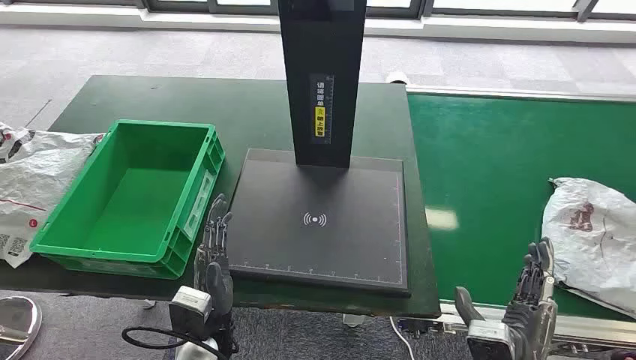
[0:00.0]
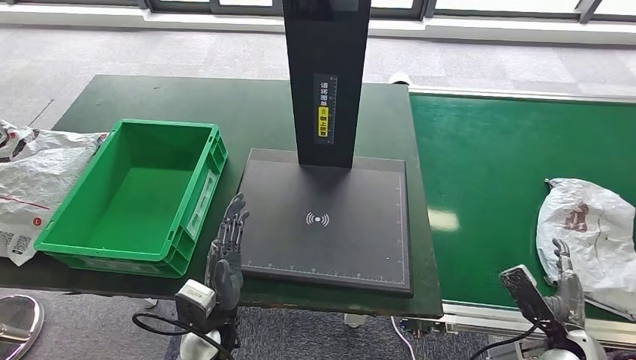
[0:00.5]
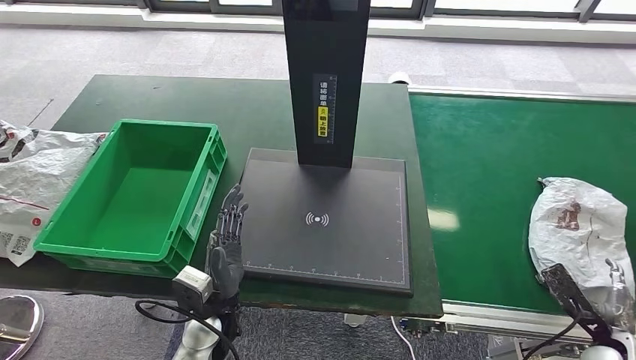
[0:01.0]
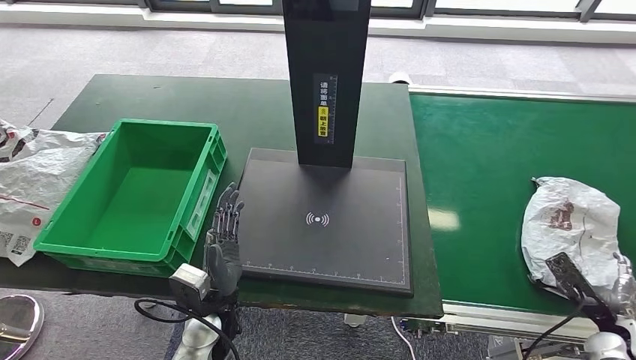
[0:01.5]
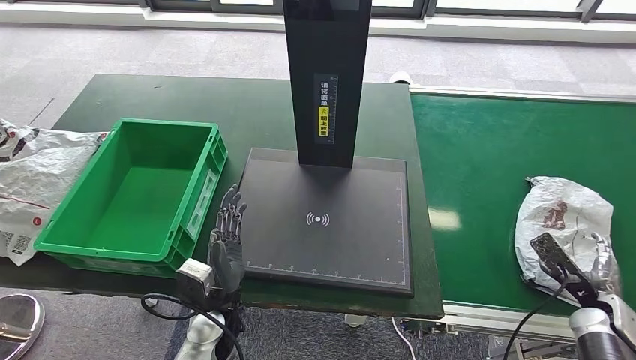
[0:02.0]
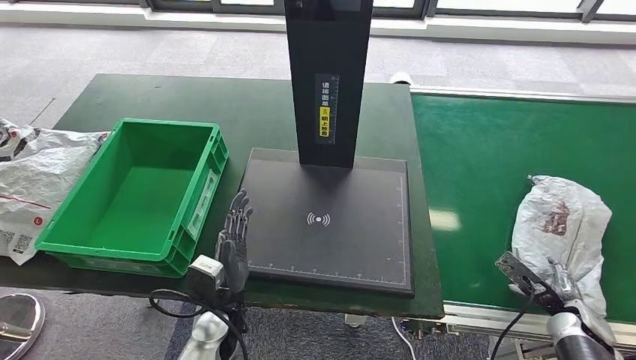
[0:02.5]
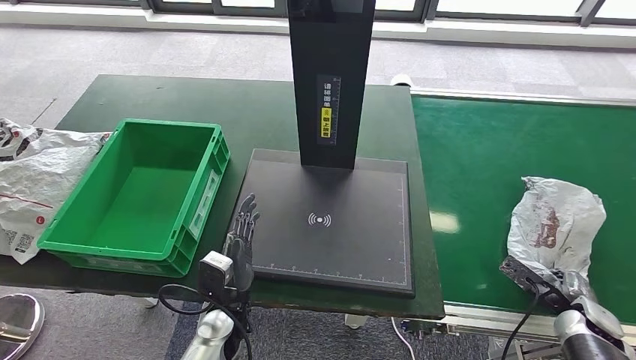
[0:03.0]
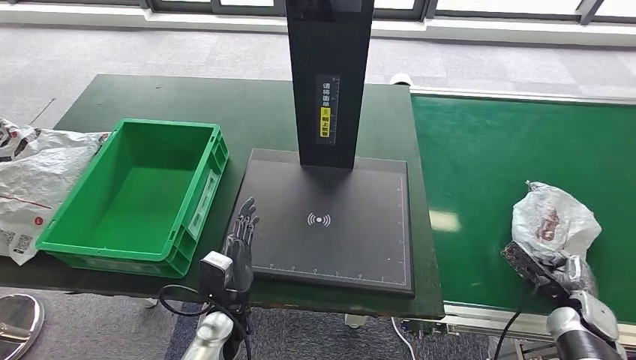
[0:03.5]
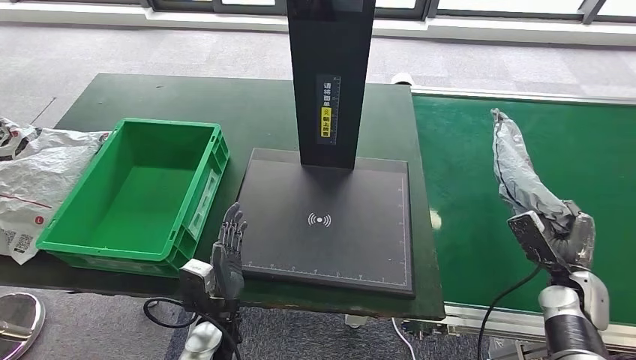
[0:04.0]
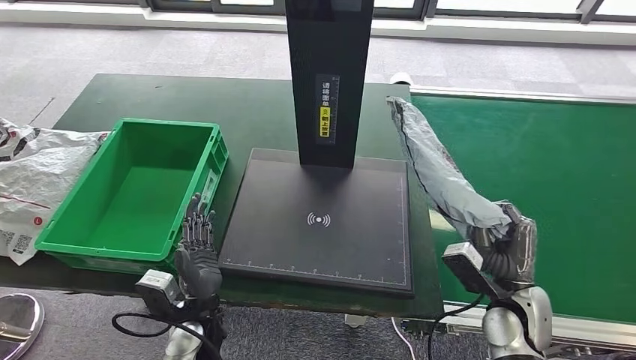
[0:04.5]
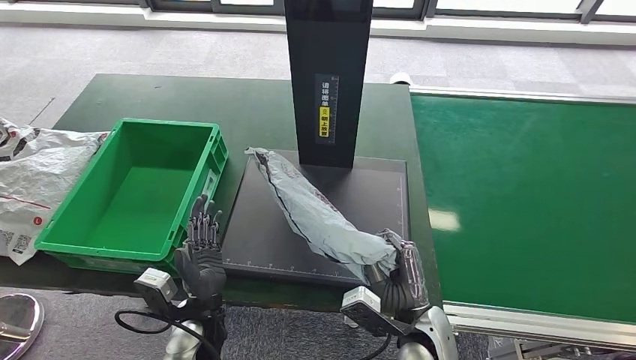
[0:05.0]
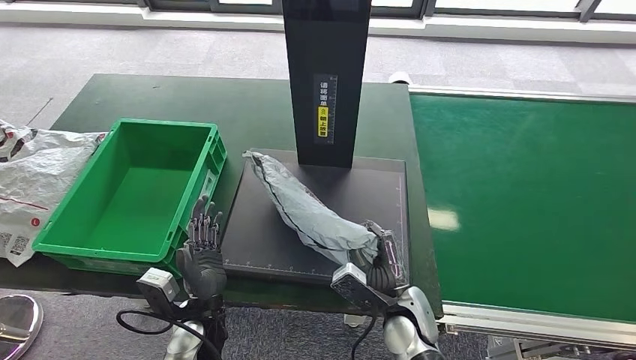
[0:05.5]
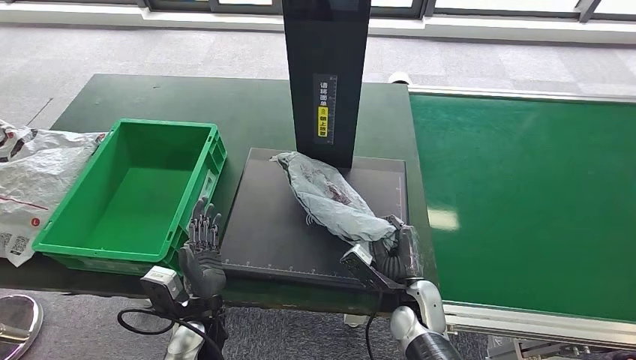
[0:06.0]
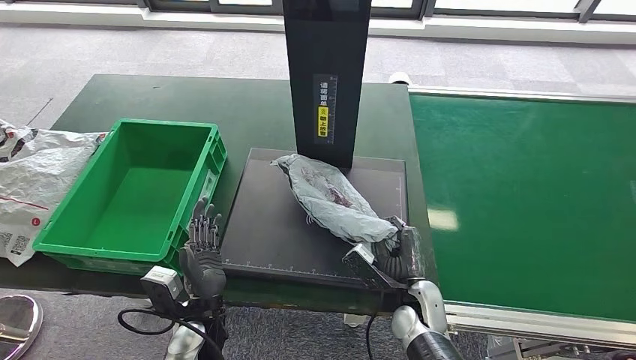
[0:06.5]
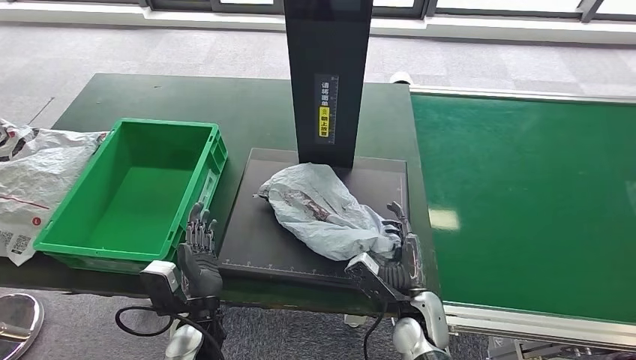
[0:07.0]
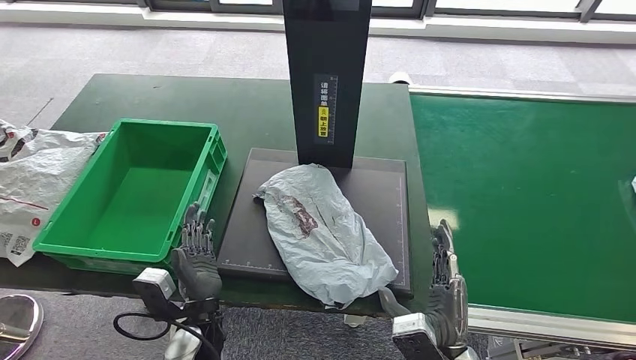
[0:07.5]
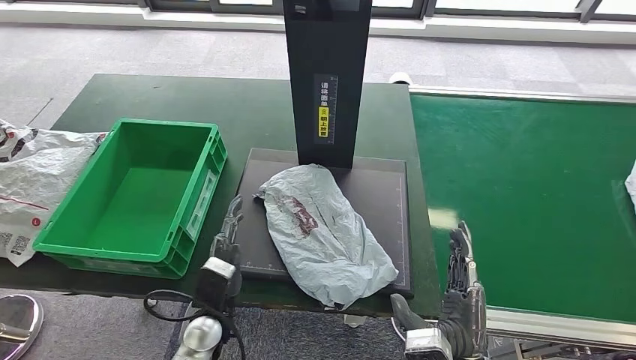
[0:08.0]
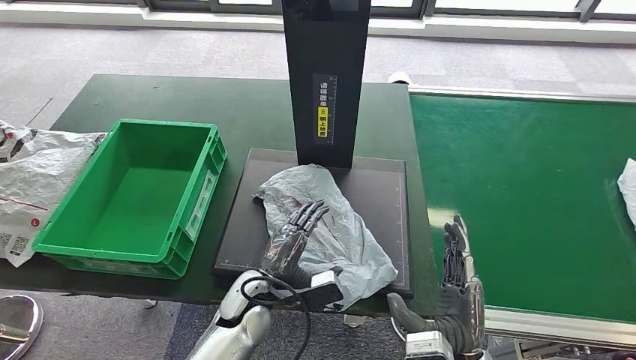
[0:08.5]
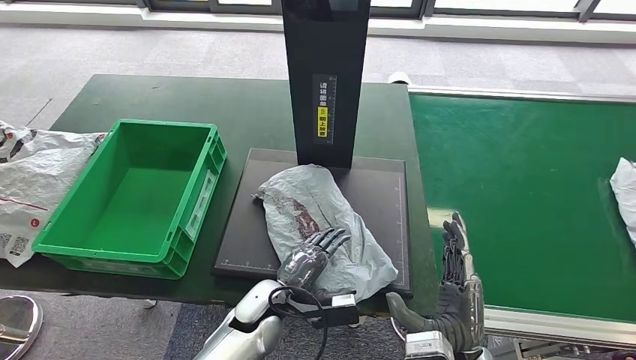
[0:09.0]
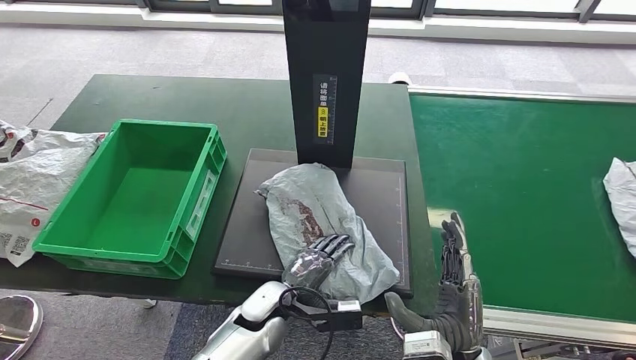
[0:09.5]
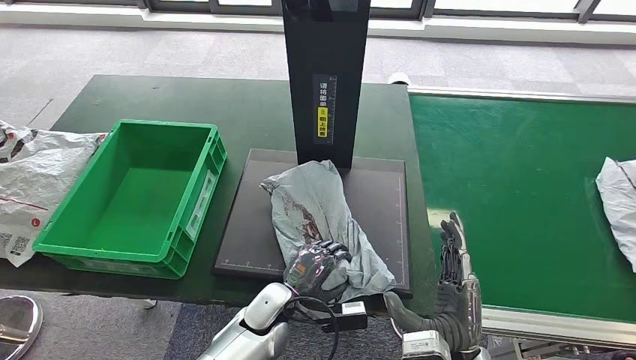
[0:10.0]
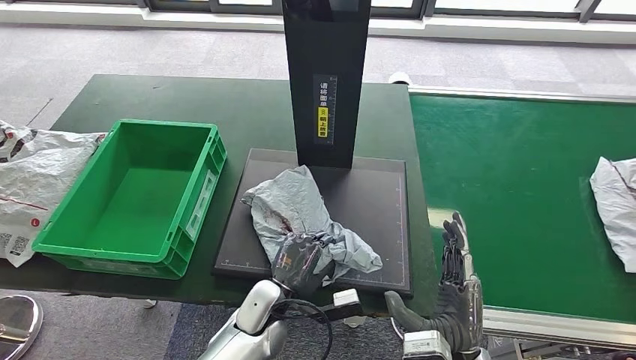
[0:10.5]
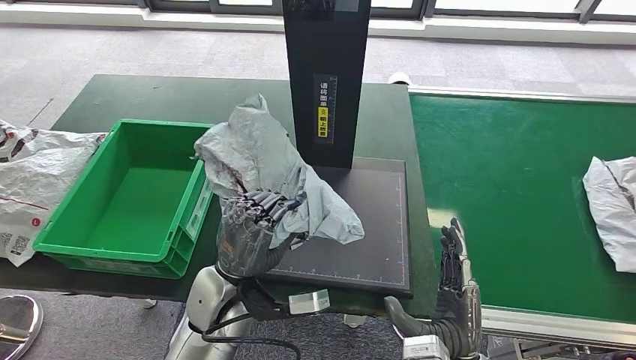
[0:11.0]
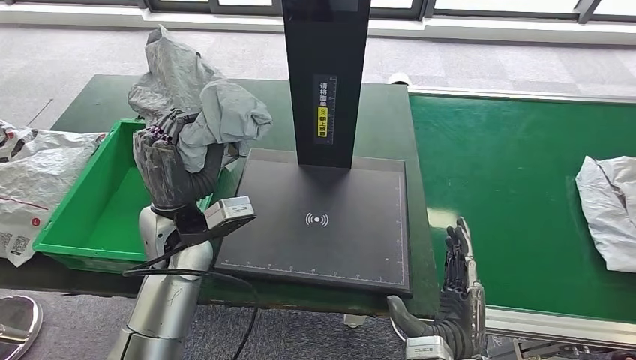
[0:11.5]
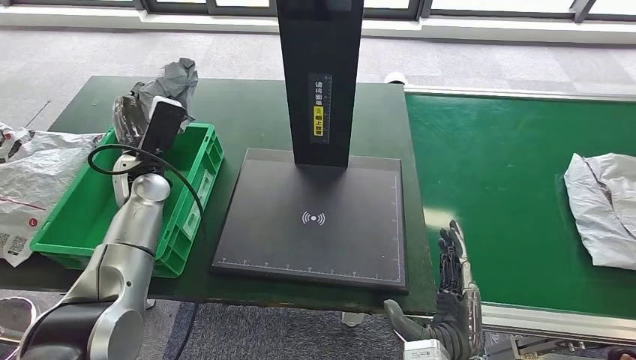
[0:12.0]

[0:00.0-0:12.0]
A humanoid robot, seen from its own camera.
Step, 0:00.0 to 0:04.5: Take the parcel off the conveyor belt.
Step, 0:05.0 to 0:08.5: Place the parcel onto the inbound machine.
Step, 0:09.5 to 0:11.5: Pick up the parcel from the inbound machine.
0:02.0 to 0:04.0: The right hand moves to the left, some 5 cm.
0:06.0 to 0:08.0: The right hand goes approximately 15 cm backward and upward.
0:08.0 to 0:10.0: The left hand shifts about 10 cm to the right.

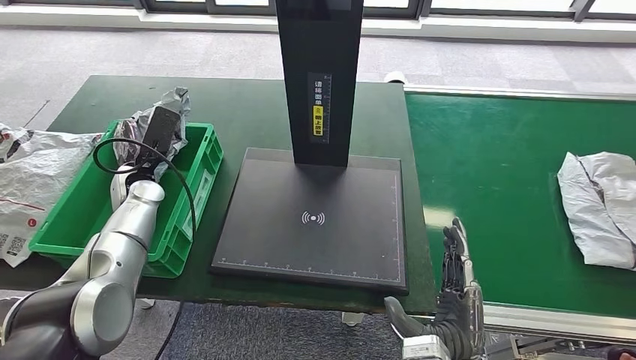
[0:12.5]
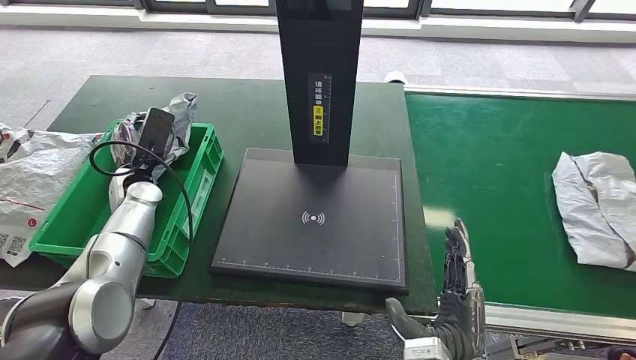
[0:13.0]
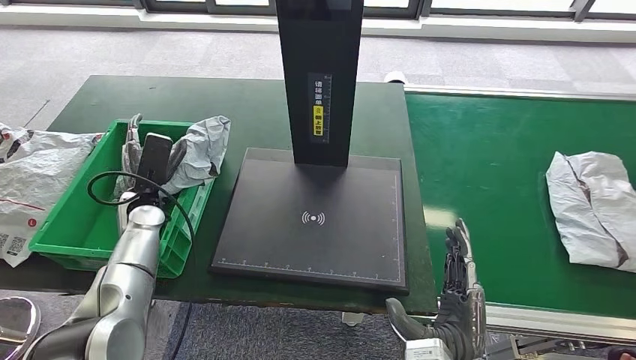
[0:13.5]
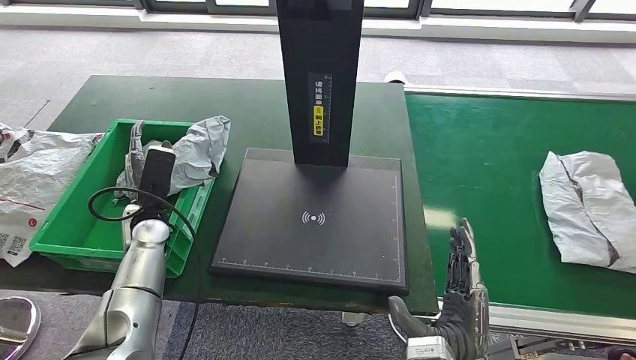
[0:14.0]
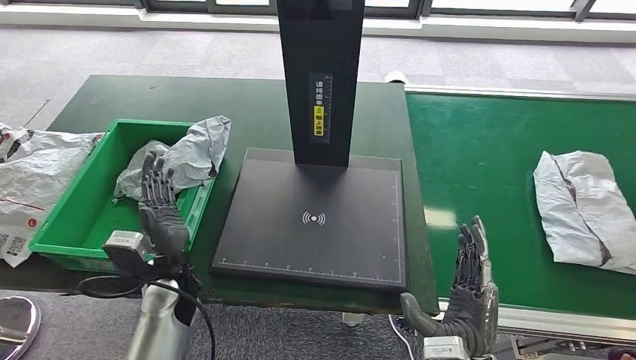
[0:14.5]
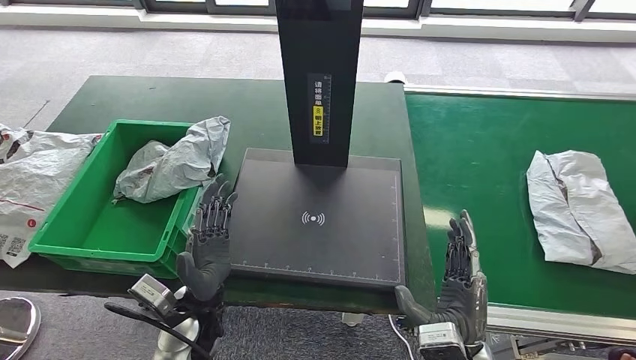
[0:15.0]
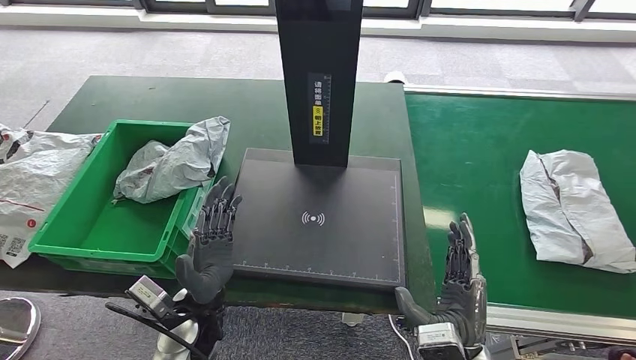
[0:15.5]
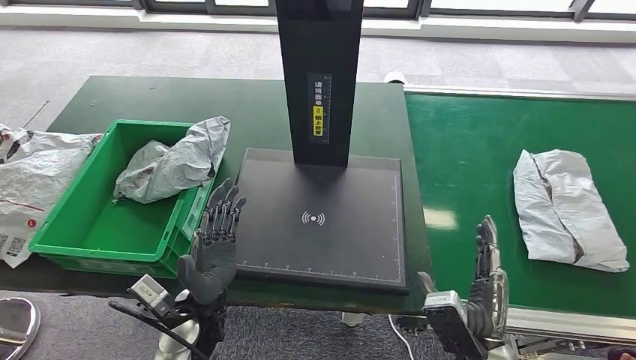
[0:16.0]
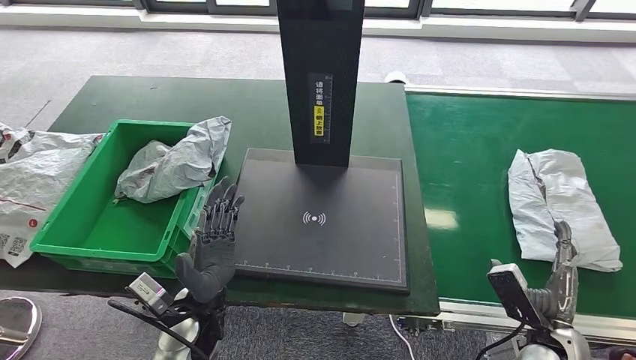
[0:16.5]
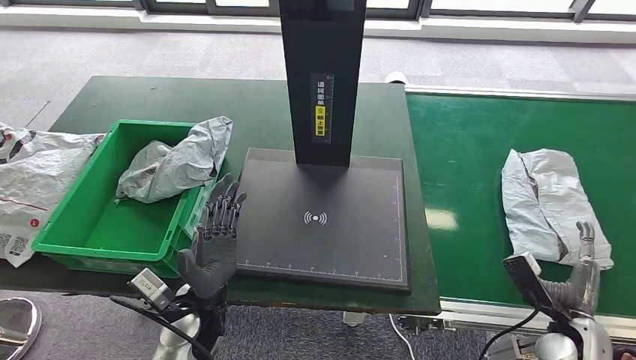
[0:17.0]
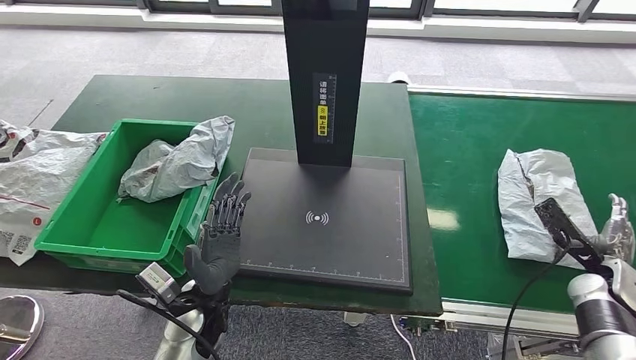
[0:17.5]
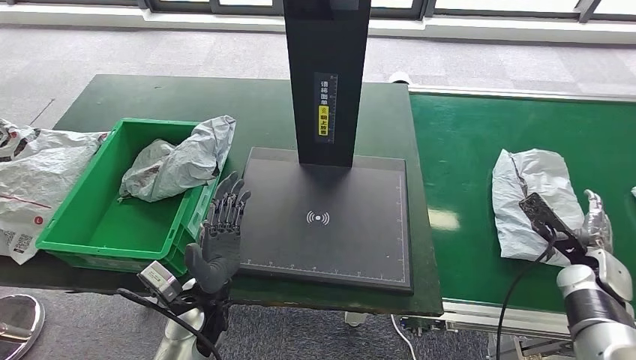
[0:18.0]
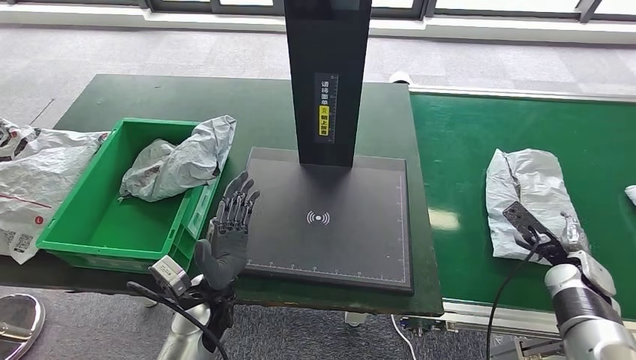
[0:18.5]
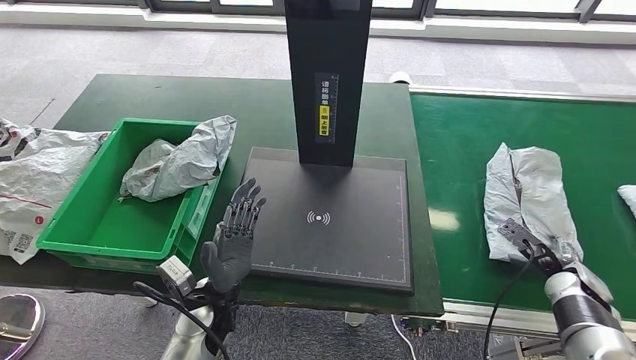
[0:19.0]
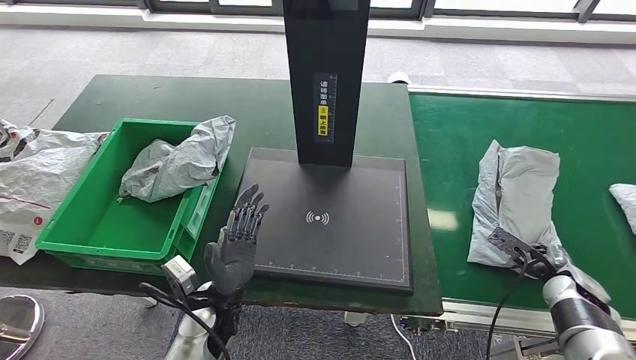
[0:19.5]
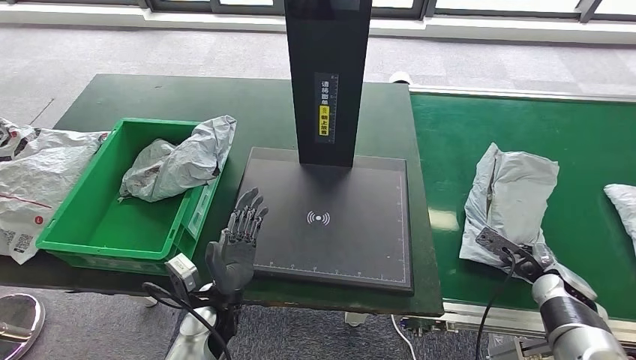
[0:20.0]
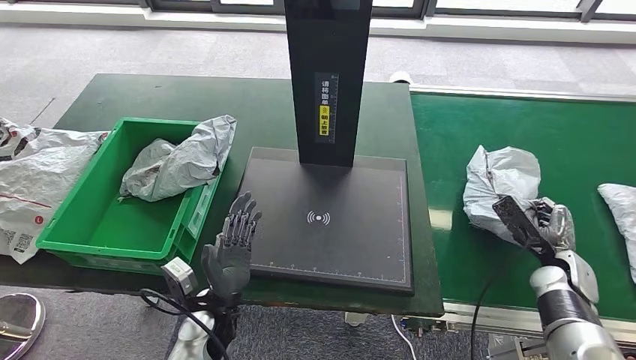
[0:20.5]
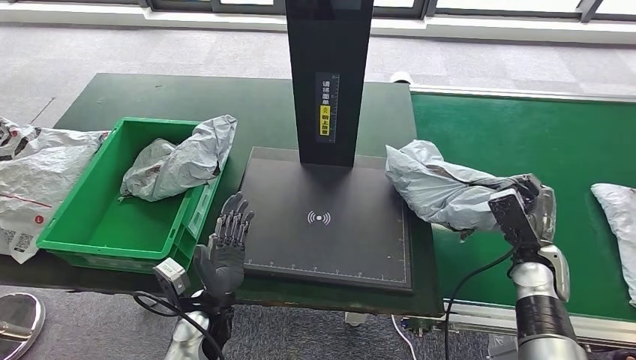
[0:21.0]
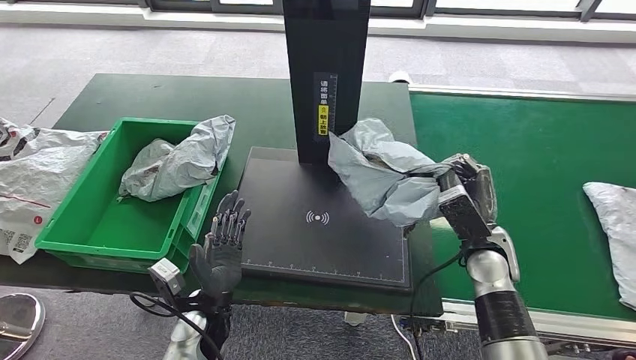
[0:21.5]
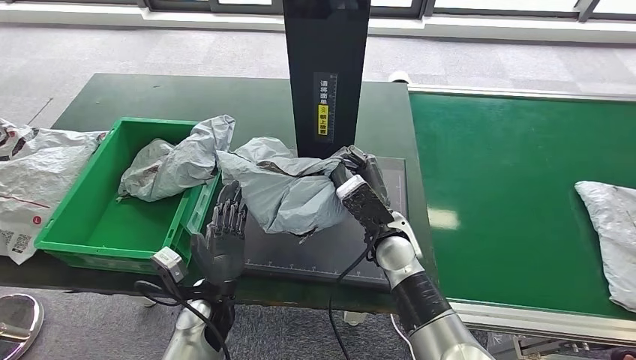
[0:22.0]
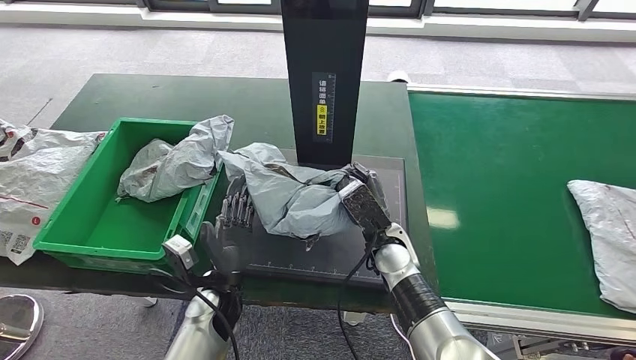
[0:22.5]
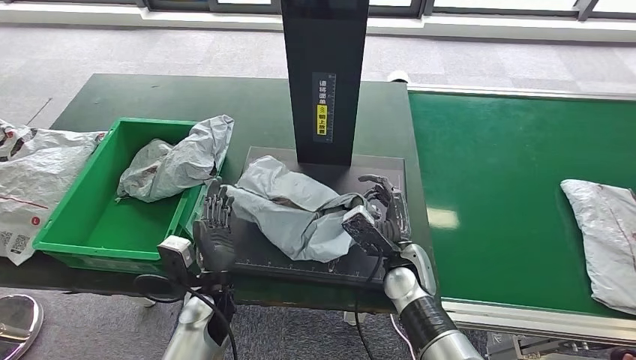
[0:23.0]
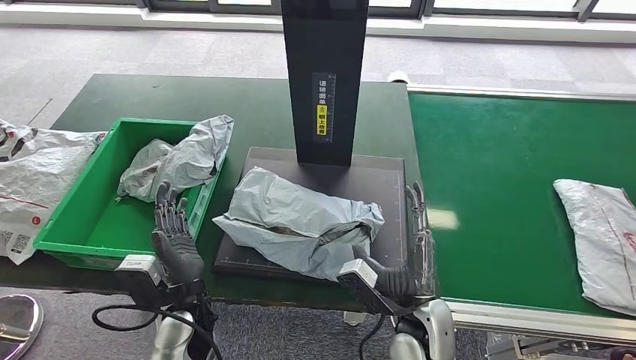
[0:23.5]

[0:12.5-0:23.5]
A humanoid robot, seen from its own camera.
Step, 0:12.5 to 0:14.5: Put the parcel inside the courier box.
Step, 0:15.0 to 0:20.5: Pick up the parcel from the conveyor belt.
0:12.5 to 0:14.5: The left hand is displaced backward and to the right by some 20 cm.
0:14.5 to 0:16.0: The left hand shifts approximately 10 cm to the right and backward.
0:18.0 to 0:20.0: The right hand moves roughly 5 cm.
